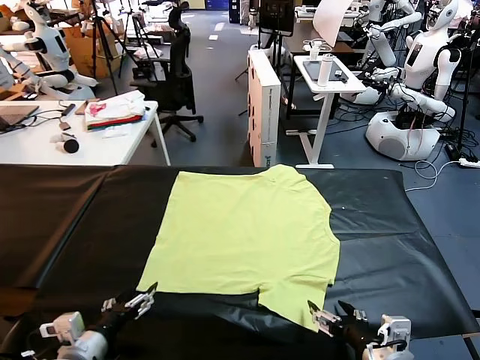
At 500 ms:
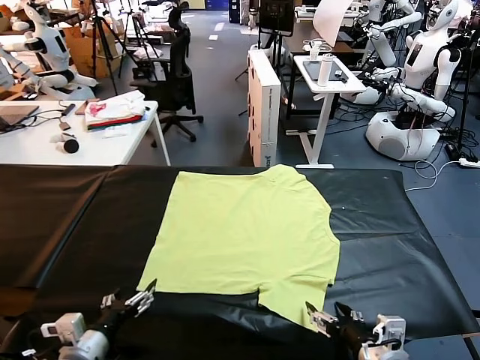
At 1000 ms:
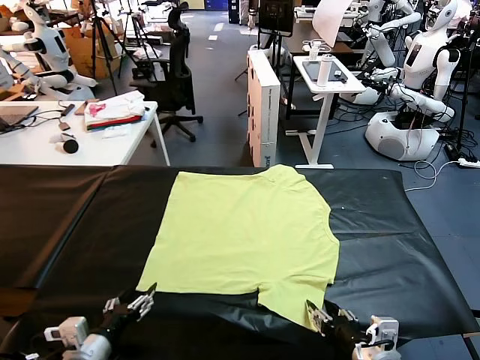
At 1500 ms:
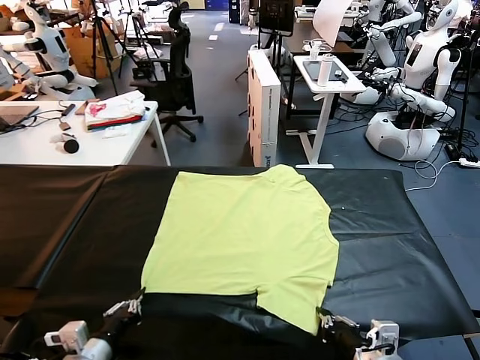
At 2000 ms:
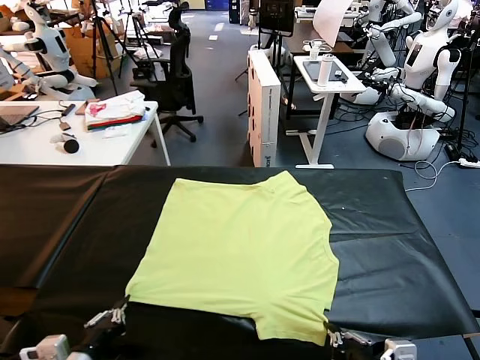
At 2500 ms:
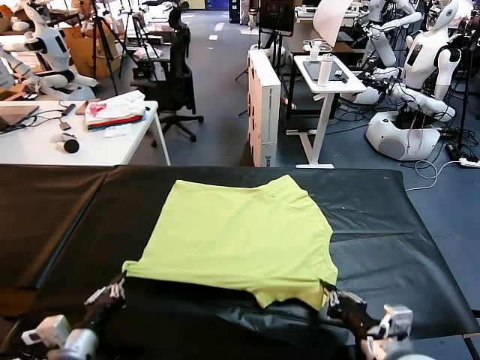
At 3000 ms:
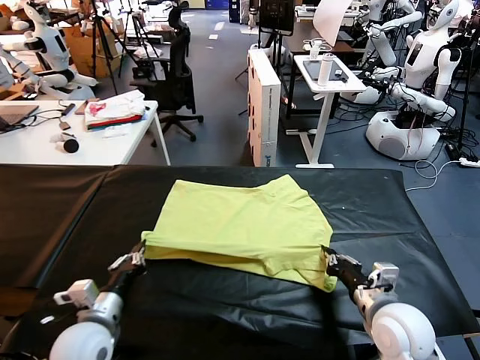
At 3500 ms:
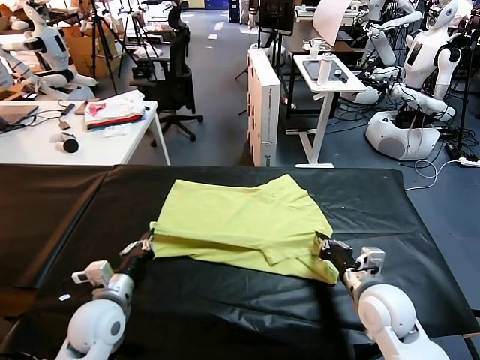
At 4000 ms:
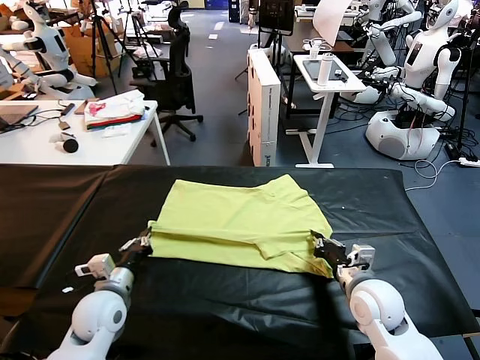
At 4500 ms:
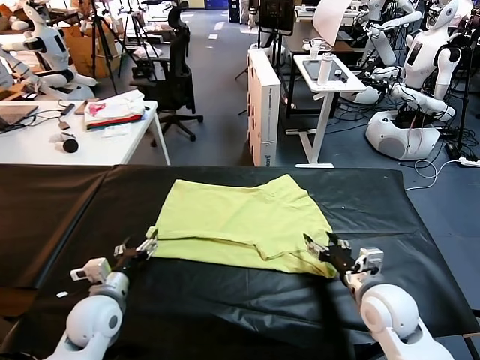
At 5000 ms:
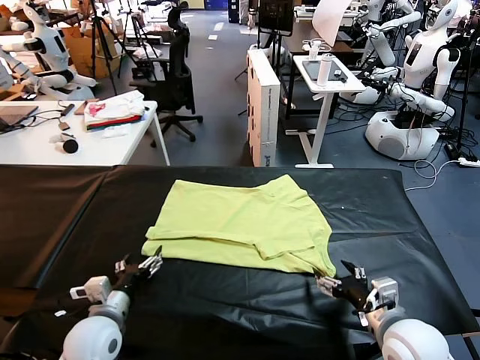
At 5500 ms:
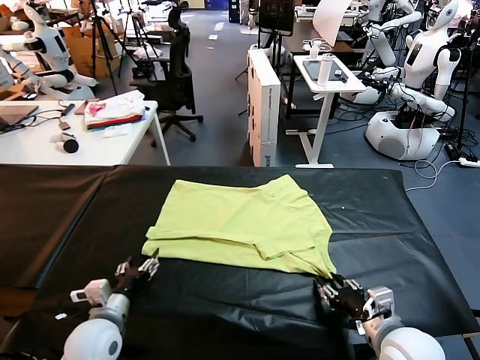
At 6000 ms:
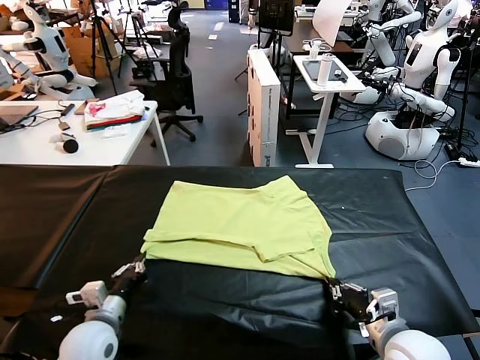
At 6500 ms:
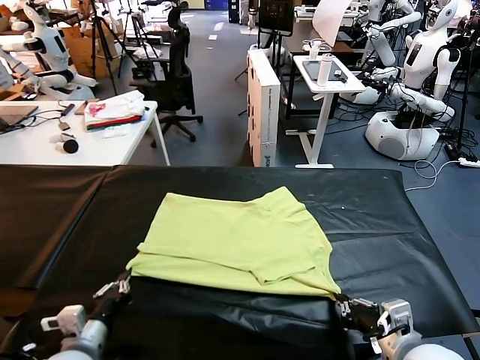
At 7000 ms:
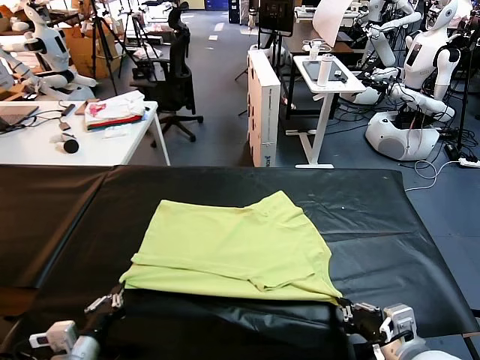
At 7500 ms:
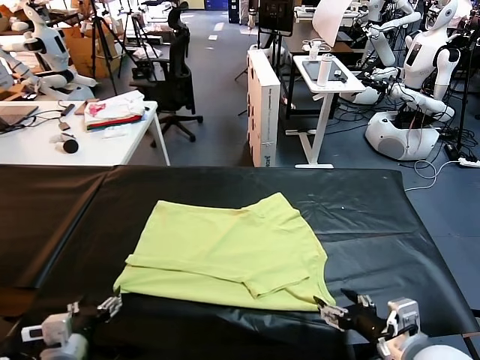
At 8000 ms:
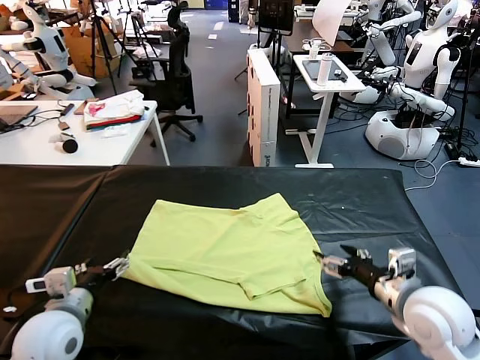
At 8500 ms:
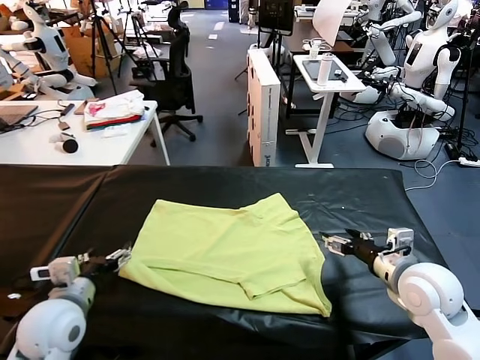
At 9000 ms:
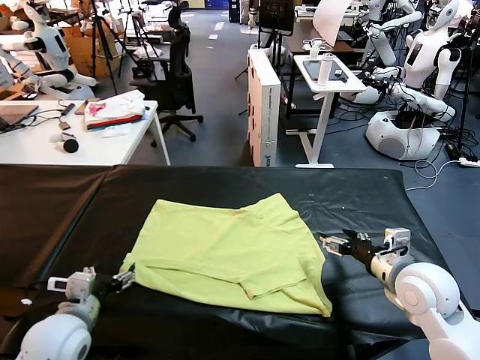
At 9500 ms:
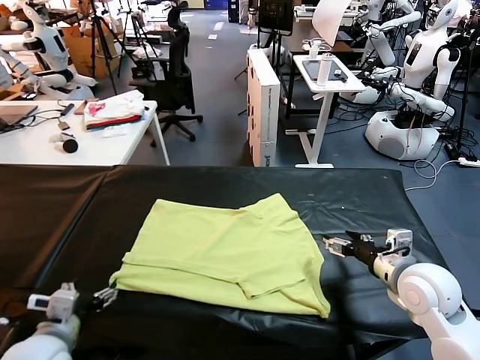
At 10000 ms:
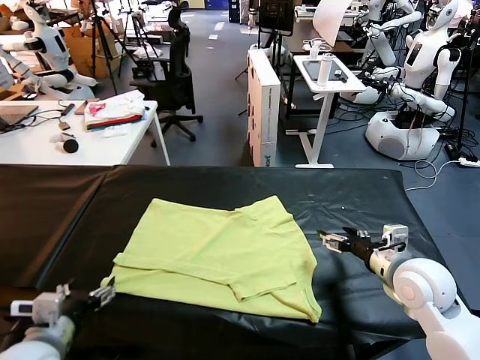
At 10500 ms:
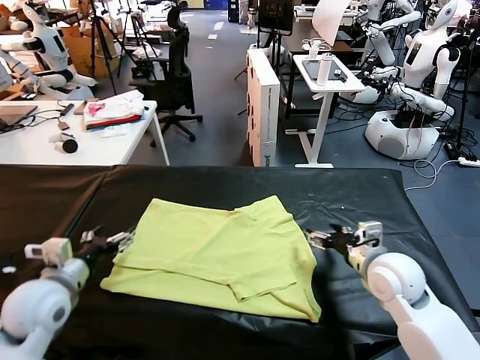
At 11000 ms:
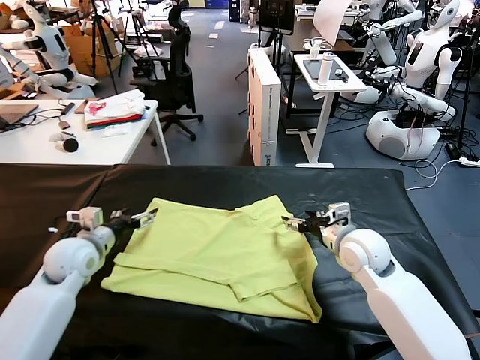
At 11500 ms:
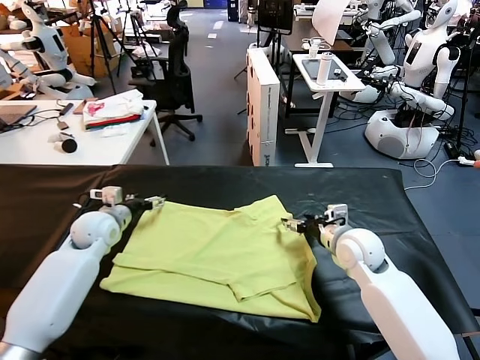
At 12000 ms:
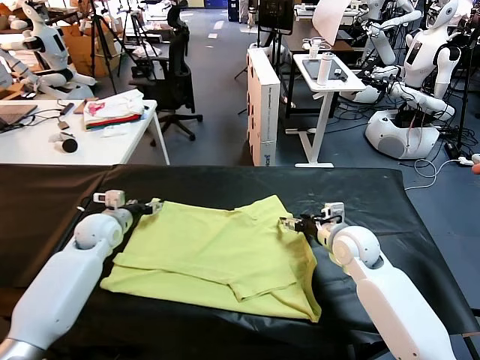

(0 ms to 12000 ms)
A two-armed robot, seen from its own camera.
Task of the whole recording: fold and organize the clothes.
Step, 0 ms - 1500 ms: use both grippers simultaneously to clamp the lower edge of the clothing fabric.
Step, 2000 ms - 4500 ms: use both grippers to drag the lower edge of the fabric forward and fold it over the upper edge.
Step, 5000 ms - 7500 ms: Drag the clothes downward with both gripper.
2000 ms - 4000 ms: Both grippers move forward, roughly 20 cm.
4000 ms - 6000 ms: The left gripper shifts roughly 5 cm backward, and opens and closes again; the right gripper shifts roughly 10 cm backward, and opens, then closes once more.
6000 ms - 8000 ms: The right gripper moves forward and upward, about 10 cm, and opens its fingers; the left gripper is displaced upward by roughly 10 cm, and opens.
10000 ms - 12000 ms: The left gripper goes roughly 30 cm forward. Meanwhile the right gripper travels forward, to the left and downward by some 15 cm, and closes.

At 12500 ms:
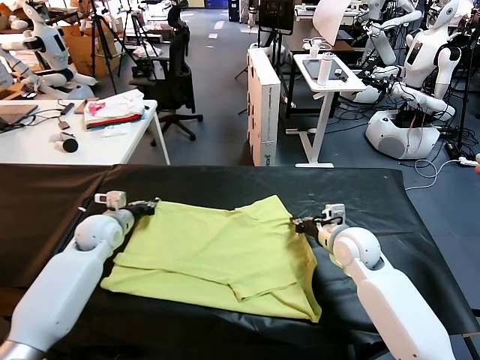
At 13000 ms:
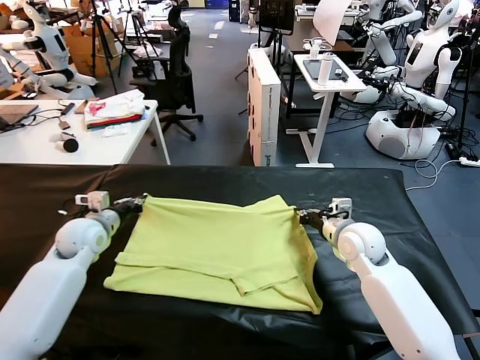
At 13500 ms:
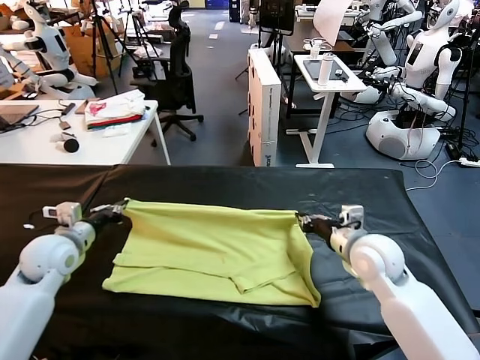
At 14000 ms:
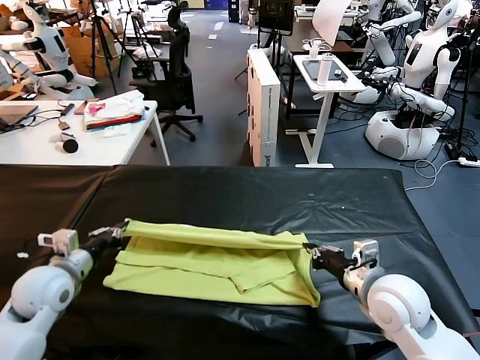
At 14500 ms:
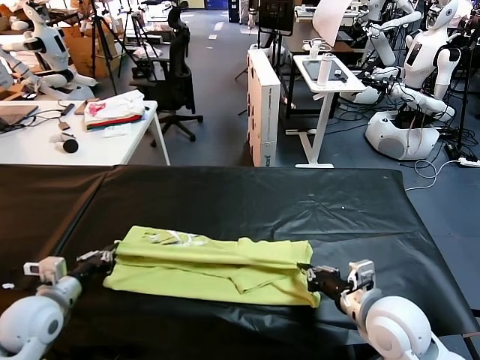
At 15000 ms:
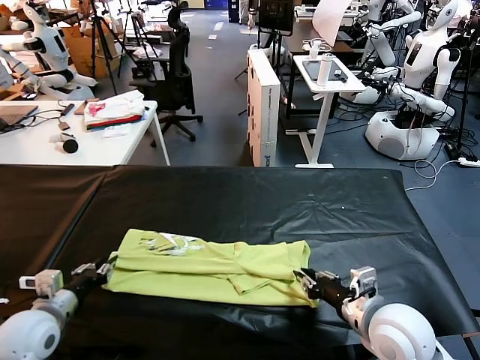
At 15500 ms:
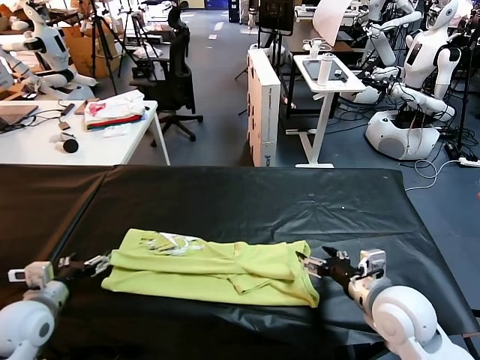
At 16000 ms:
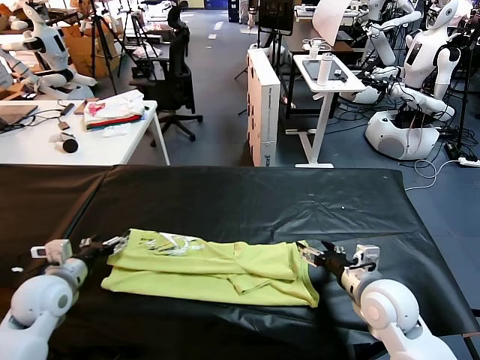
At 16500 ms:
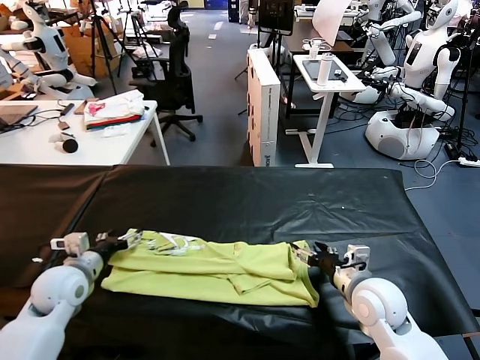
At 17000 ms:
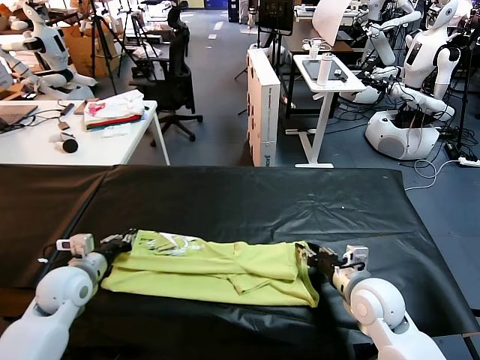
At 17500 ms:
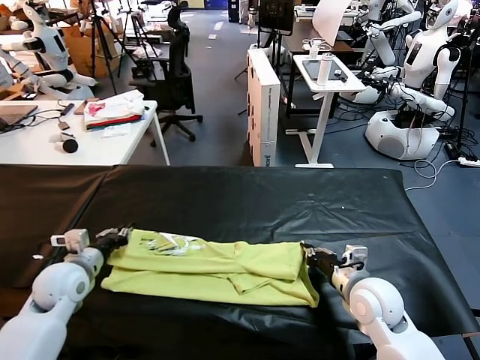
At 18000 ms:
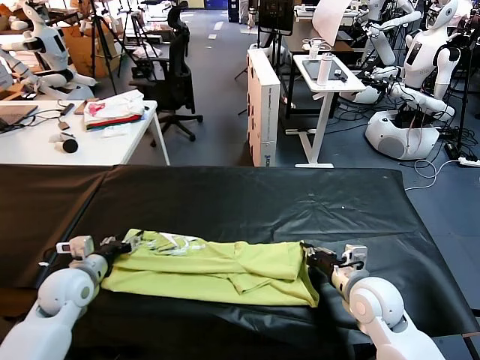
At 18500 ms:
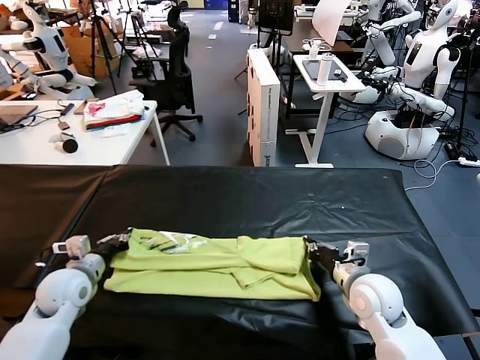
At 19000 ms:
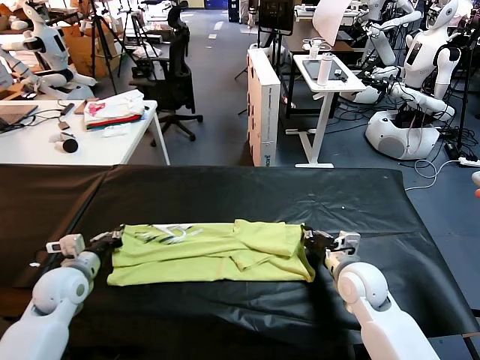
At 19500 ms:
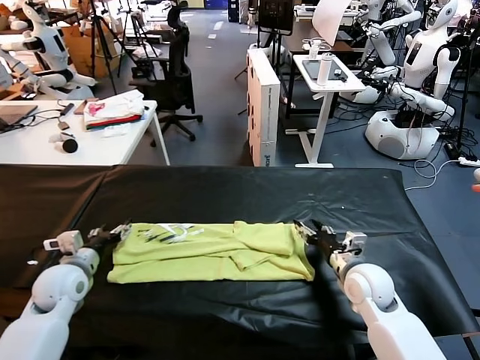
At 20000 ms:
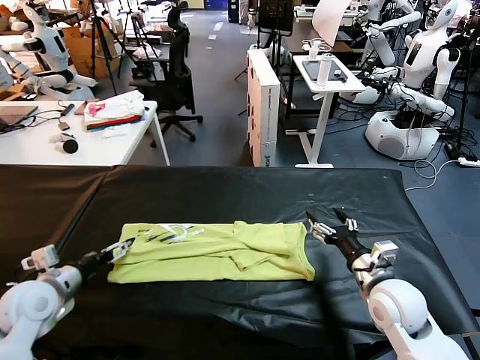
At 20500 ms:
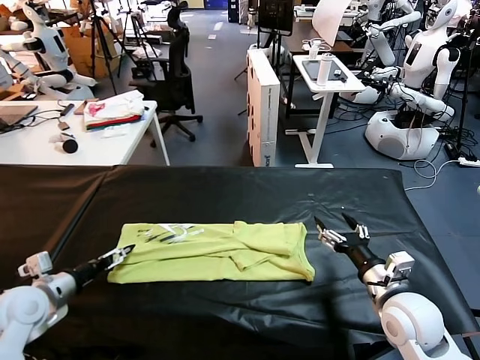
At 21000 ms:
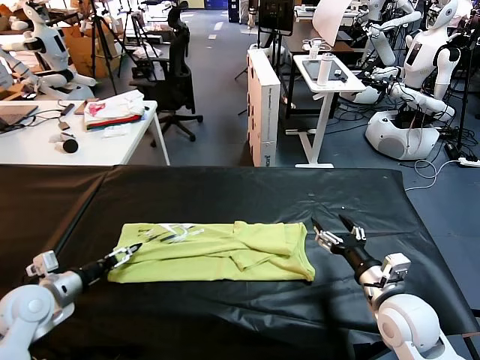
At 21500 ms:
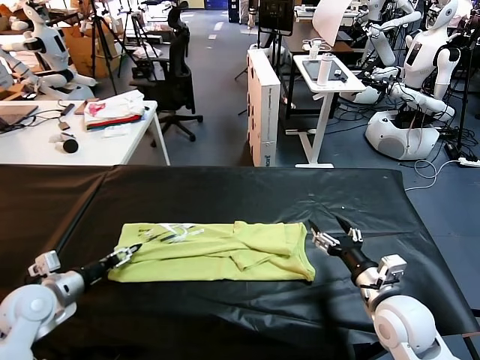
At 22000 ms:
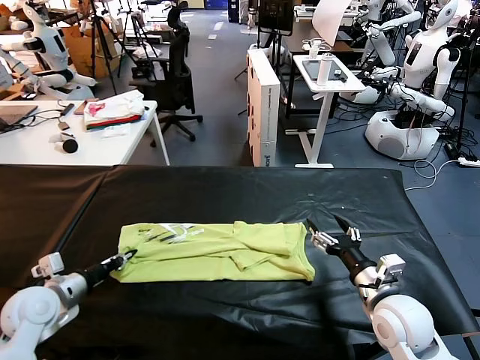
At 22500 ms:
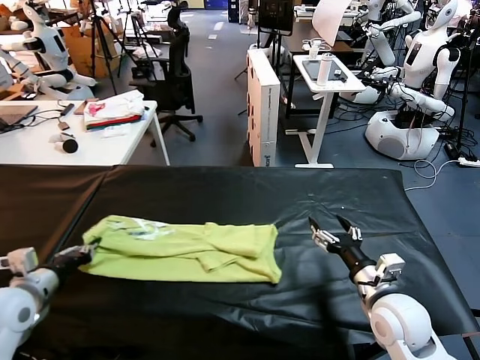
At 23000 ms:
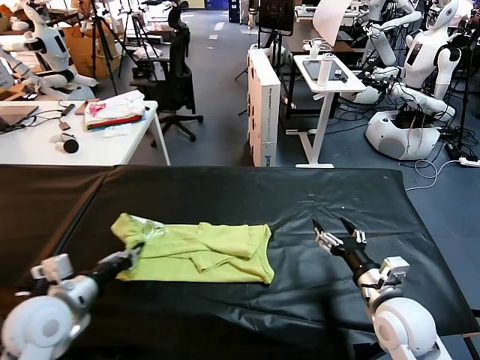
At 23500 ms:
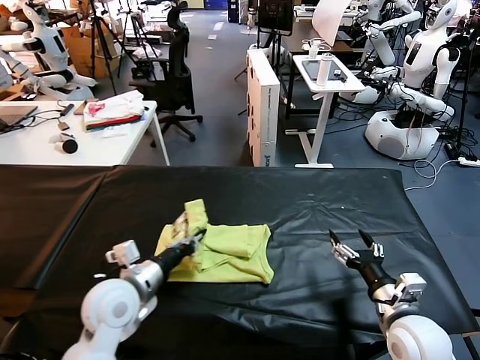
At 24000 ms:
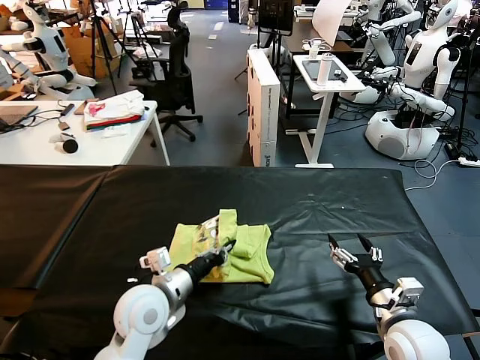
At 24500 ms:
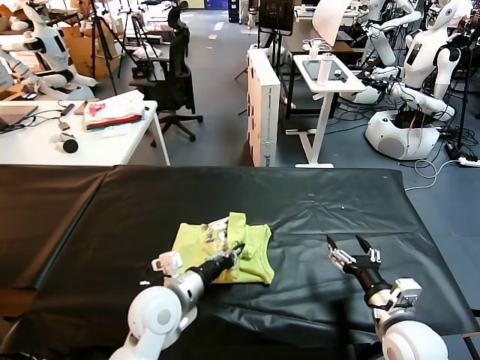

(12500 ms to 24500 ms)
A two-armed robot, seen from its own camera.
Task of the whole recording: fold and organize the clothes.
Step, 13000 ms - 15000 ms: use both grippers to drag the upper edge of the fabric backward and fold it over the lower edge.
Step, 15500 ms - 21500 ms: use the left gripper to clamp the left edge of the fabric.
12500 ms - 14500 ms: Both grippers travel together backward, approximately 20 cm.
14500 ms - 16500 ms: The grippers both shift forward by roughly 5 cm. The left gripper opens its fingers; the right gripper opens.
16500 ms - 18500 ms: The right gripper closes its fingers; the left gripper closes.
18500 ms - 20500 ms: Both grippers move backward, some 5 cm. The right gripper opens. The left gripper opens up.
20500 ms - 22500 ms: The left gripper closes up.
22500 ms - 24500 ms: The left gripper travels to the right by approximately 25 cm.

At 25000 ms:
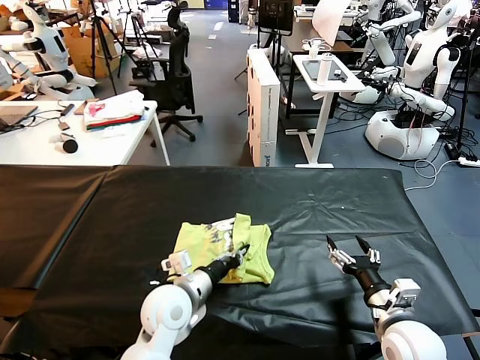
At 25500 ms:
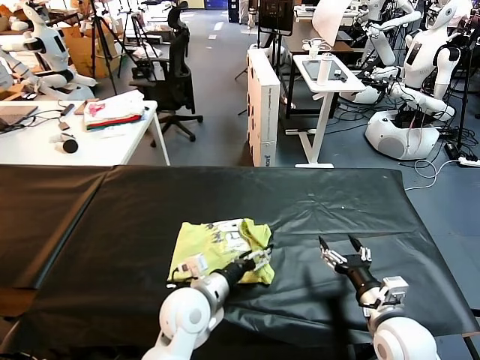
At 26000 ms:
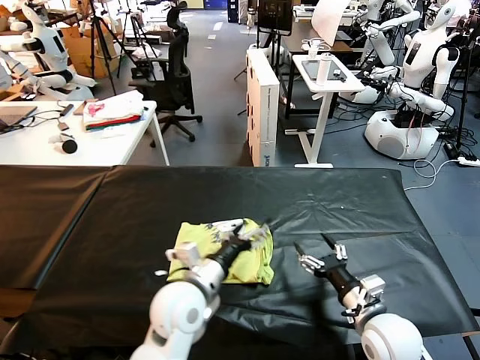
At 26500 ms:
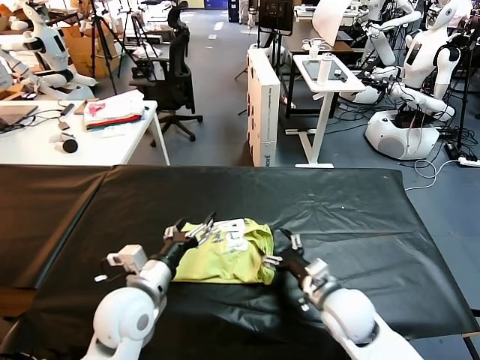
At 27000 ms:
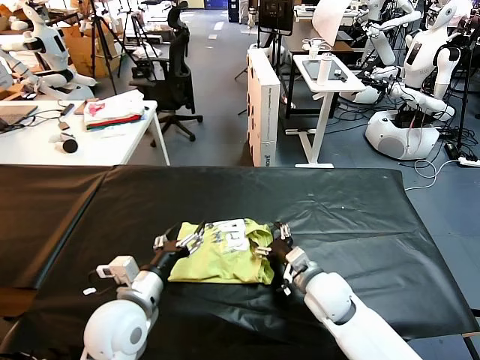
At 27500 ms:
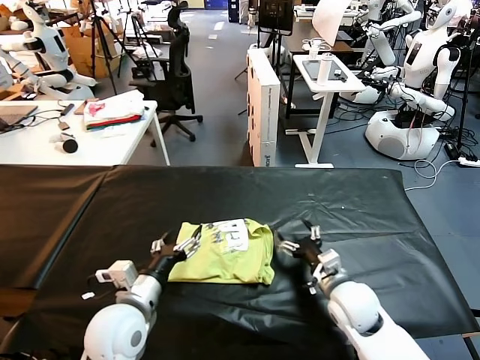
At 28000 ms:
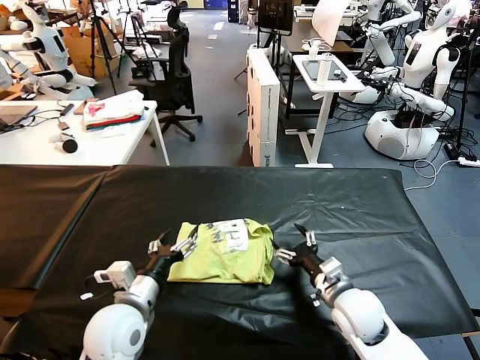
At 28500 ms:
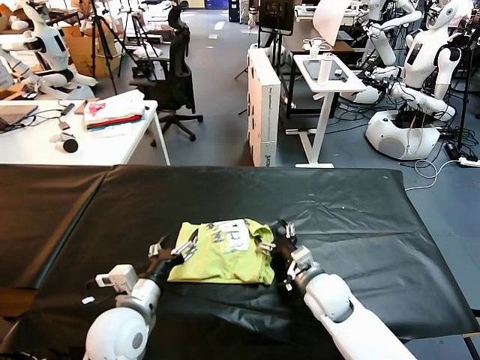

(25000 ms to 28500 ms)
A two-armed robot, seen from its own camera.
Task of the whole recording: fold and organize the clothes.
25000 ms - 27000 ms: The right gripper heads to the left and forward, covering roughly 15 cm, while the left gripper shifts roughly 5 cm to the left, and opens.
